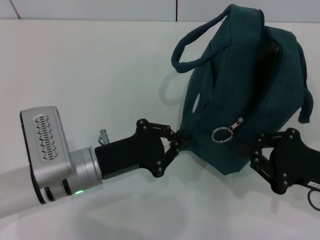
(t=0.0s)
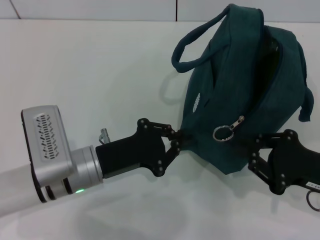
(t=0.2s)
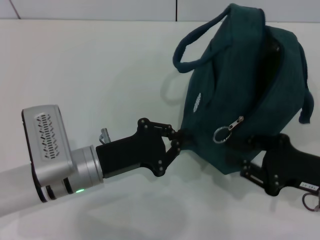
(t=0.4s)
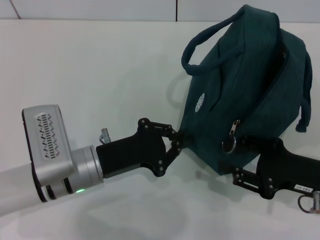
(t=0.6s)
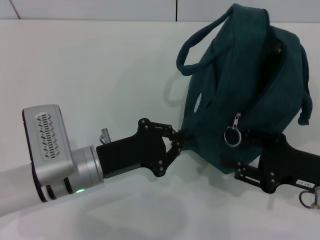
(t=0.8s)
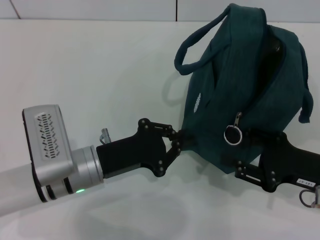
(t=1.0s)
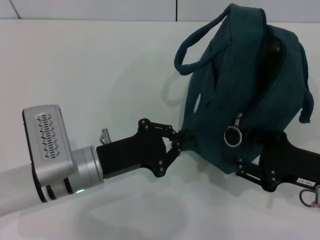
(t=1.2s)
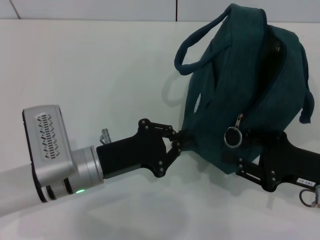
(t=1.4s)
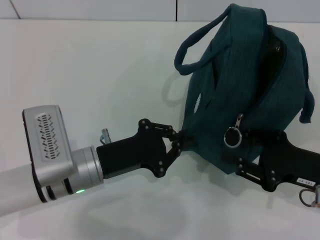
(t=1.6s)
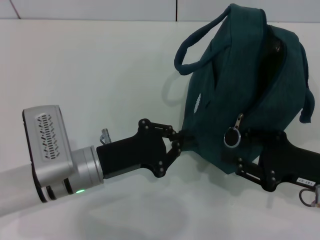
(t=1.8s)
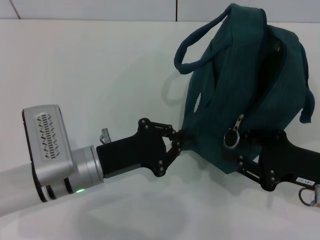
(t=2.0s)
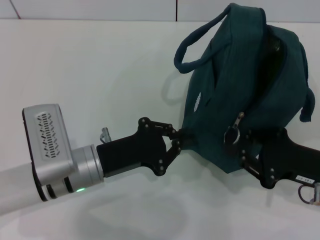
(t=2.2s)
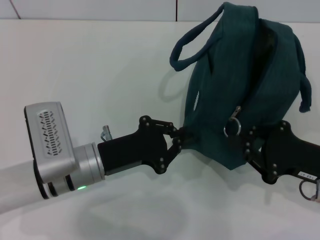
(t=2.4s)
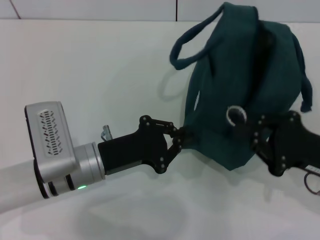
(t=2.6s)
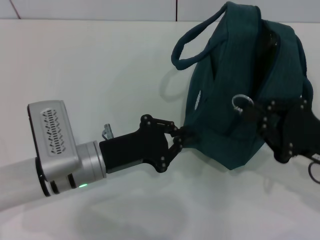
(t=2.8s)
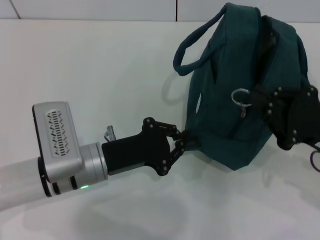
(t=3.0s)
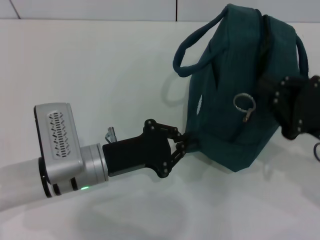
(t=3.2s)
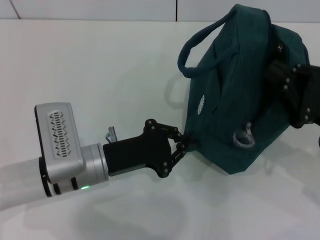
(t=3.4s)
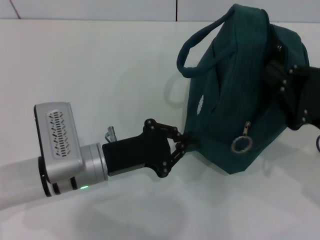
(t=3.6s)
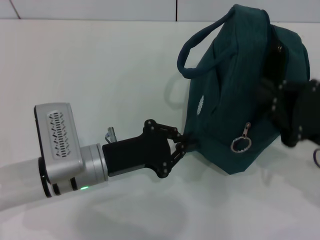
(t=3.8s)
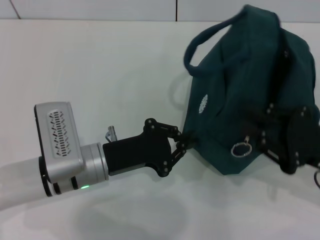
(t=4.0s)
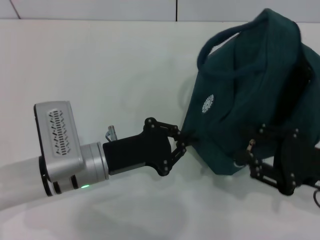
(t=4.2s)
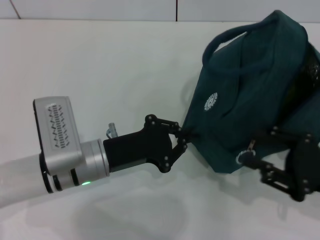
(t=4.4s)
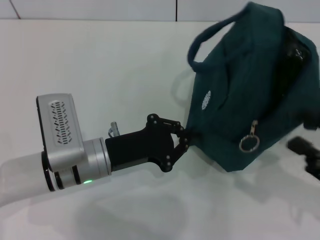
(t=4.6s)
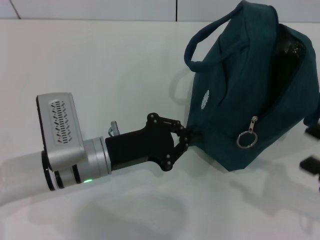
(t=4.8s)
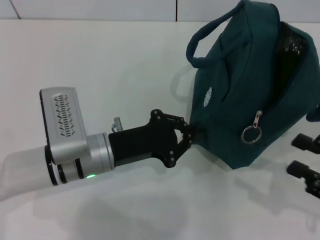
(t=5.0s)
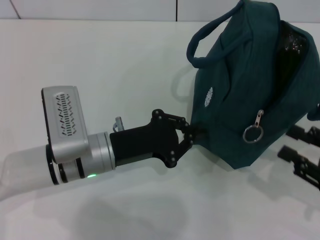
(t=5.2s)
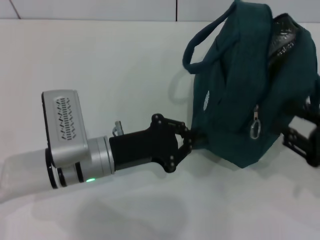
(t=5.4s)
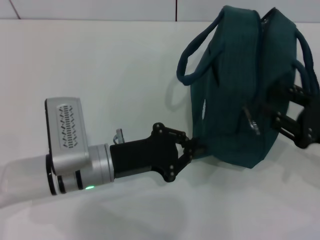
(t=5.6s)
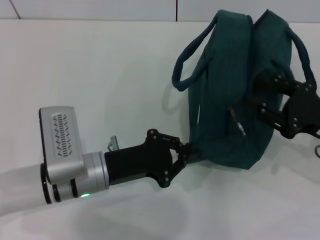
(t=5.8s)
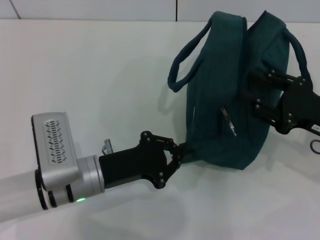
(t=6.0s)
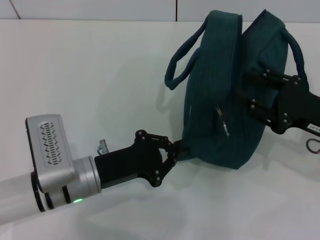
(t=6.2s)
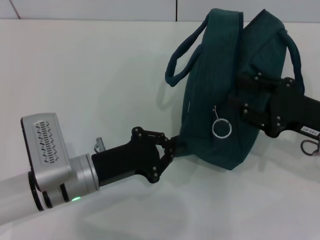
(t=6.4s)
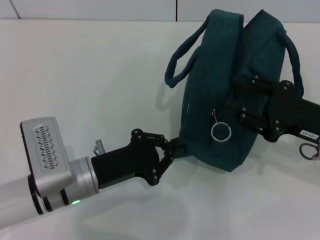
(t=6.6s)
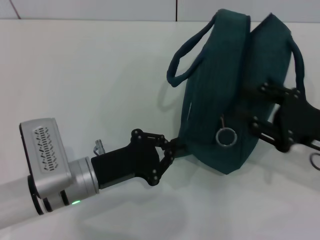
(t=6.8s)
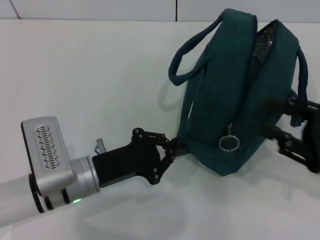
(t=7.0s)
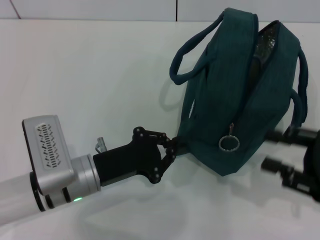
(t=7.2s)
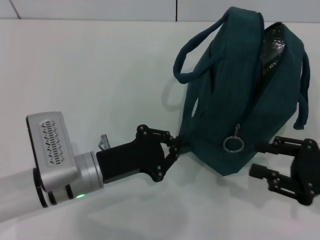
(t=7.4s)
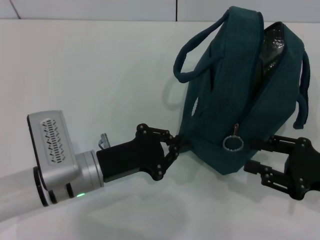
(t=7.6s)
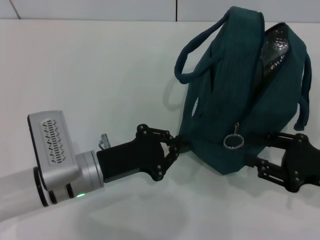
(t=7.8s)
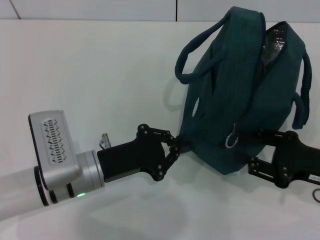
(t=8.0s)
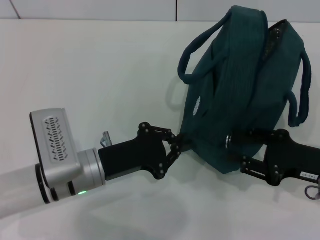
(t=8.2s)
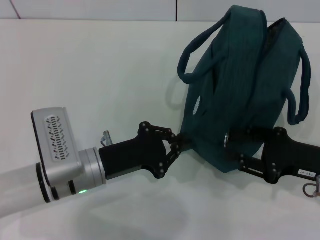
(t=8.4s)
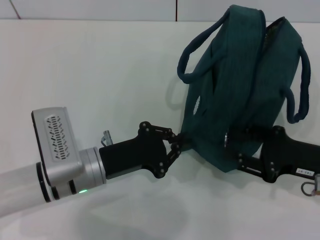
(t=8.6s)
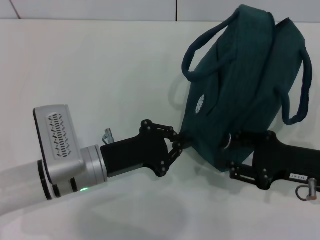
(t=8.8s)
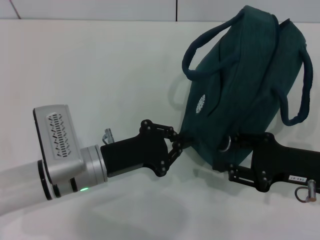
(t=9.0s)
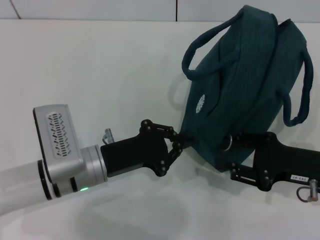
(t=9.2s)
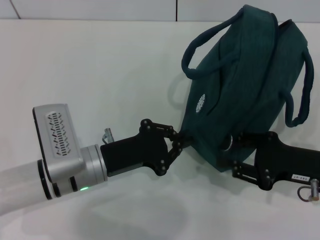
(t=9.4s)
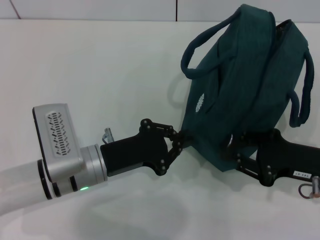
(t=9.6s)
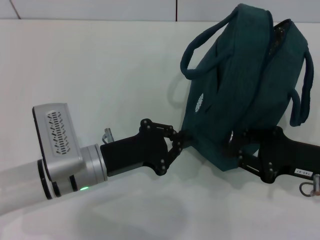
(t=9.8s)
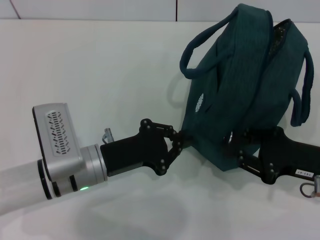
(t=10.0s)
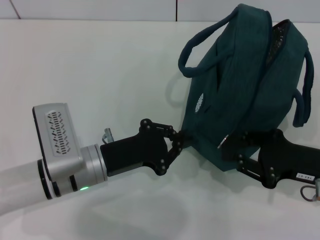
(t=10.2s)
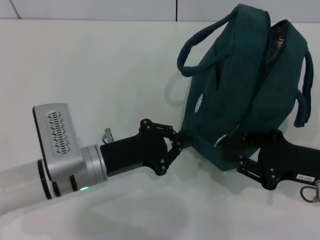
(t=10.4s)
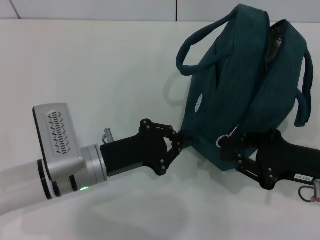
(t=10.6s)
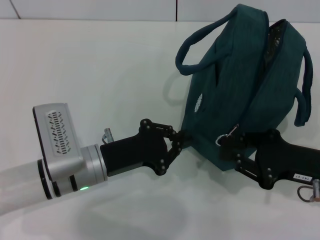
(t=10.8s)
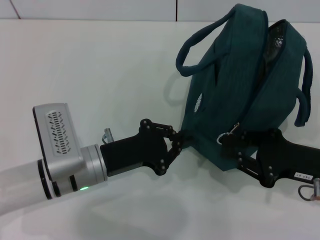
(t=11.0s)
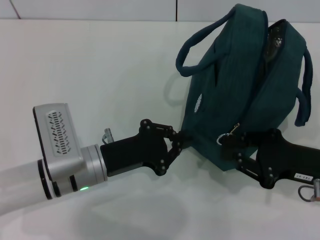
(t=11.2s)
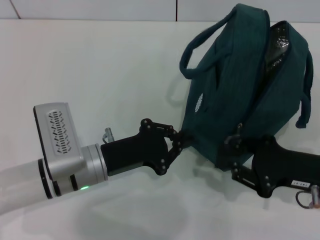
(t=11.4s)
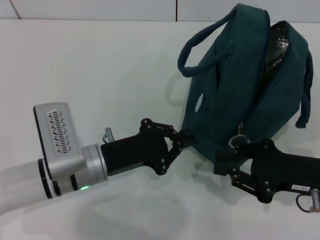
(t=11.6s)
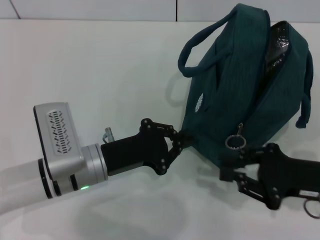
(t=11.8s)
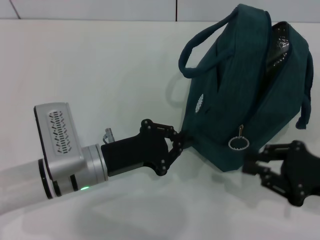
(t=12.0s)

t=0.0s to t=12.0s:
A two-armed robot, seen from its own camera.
t=0.0s to t=1.6s: The right gripper opens up.
t=1.6s to t=3.0s: The right gripper closes up.
t=3.0s to t=4.4s: The right gripper opens its fingers.
t=4.4s to t=6.0s: The right gripper travels forward by some 5 cm.
t=6.0s to t=7.6s: The right gripper moves about 5 cm.
t=7.6s to t=9.0s: There are only small adjustments of the grippers.
t=9.0s to t=10.4s: Both grippers stay about where they are.
t=10.4s to t=12.0s: The grippers make only small movements.

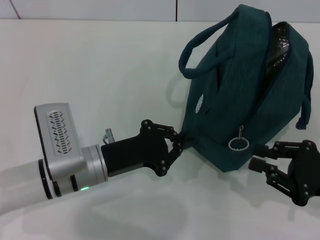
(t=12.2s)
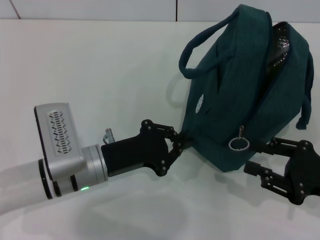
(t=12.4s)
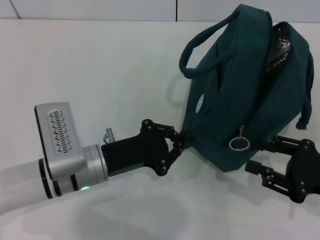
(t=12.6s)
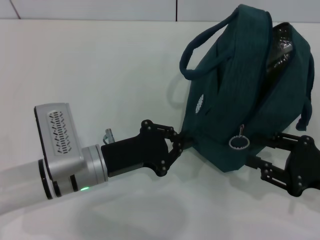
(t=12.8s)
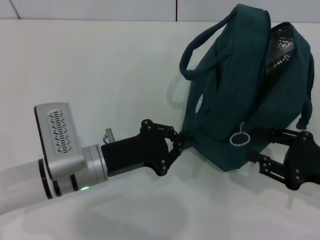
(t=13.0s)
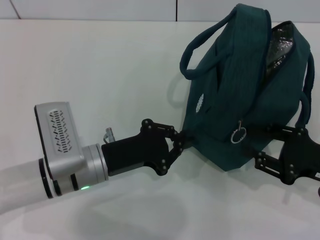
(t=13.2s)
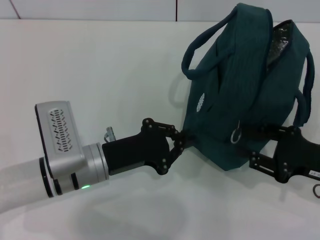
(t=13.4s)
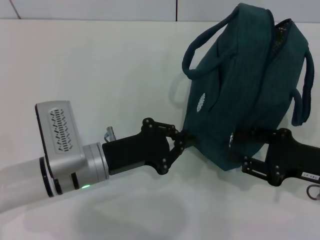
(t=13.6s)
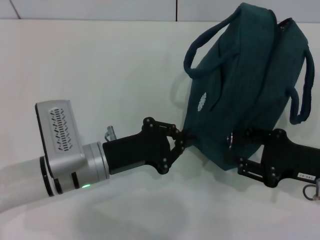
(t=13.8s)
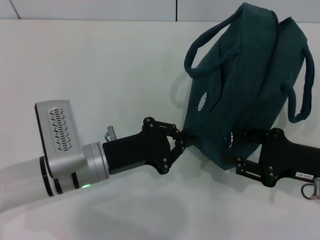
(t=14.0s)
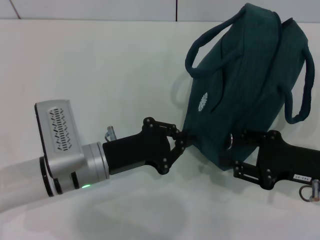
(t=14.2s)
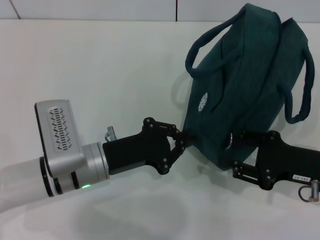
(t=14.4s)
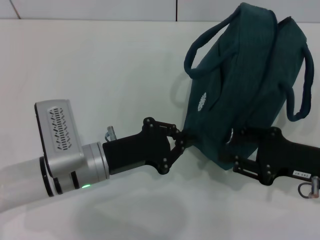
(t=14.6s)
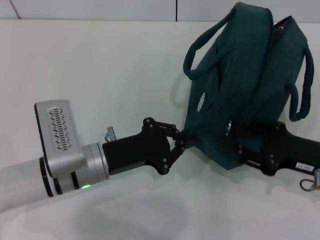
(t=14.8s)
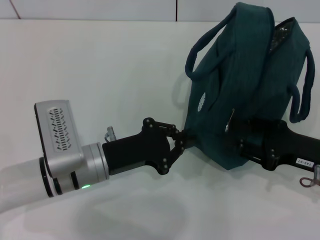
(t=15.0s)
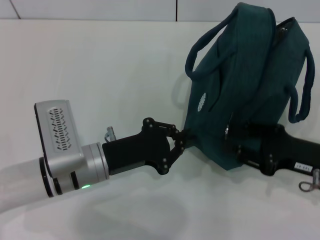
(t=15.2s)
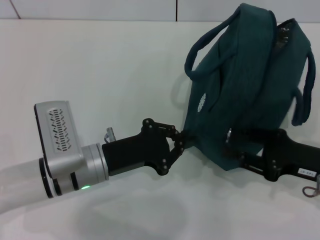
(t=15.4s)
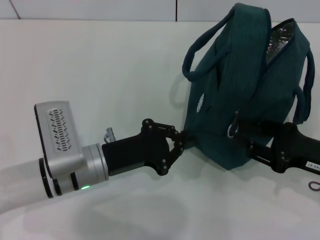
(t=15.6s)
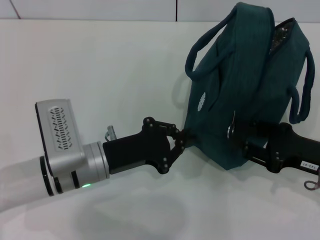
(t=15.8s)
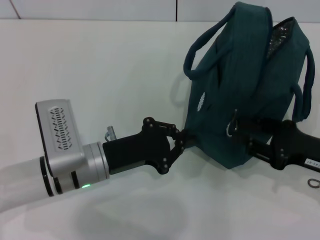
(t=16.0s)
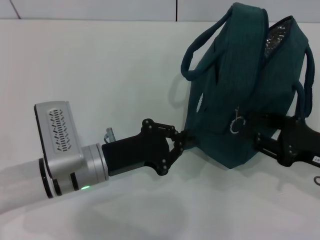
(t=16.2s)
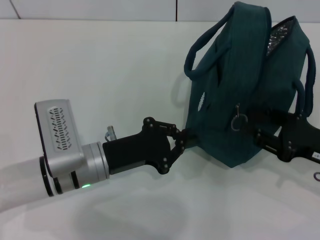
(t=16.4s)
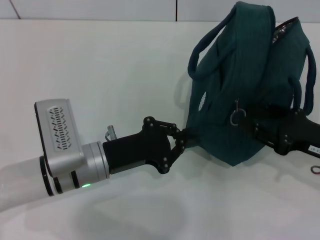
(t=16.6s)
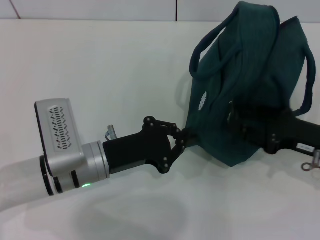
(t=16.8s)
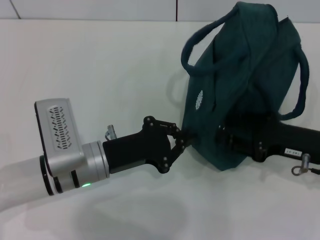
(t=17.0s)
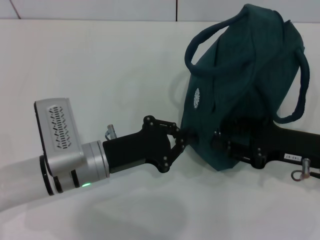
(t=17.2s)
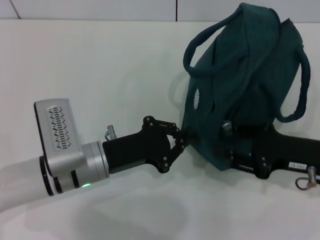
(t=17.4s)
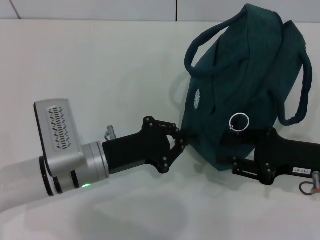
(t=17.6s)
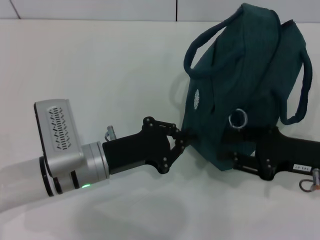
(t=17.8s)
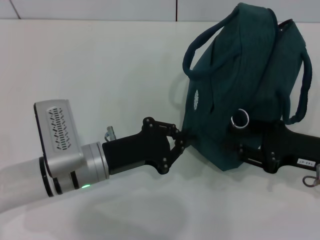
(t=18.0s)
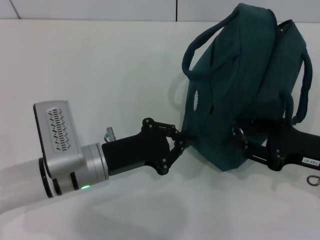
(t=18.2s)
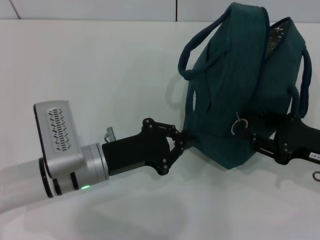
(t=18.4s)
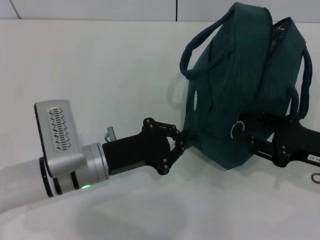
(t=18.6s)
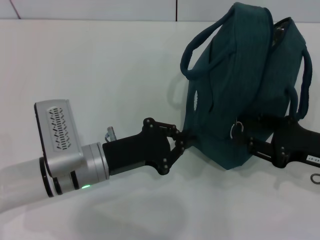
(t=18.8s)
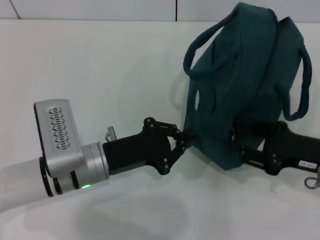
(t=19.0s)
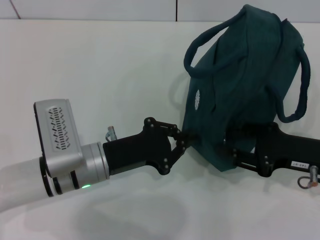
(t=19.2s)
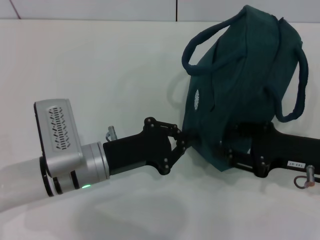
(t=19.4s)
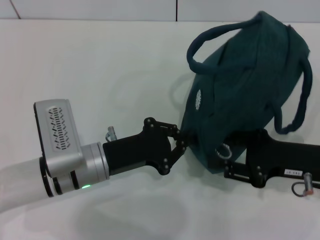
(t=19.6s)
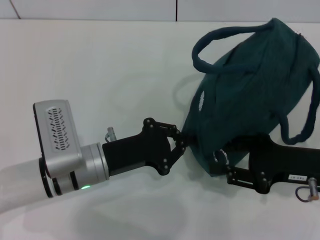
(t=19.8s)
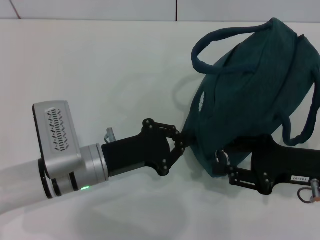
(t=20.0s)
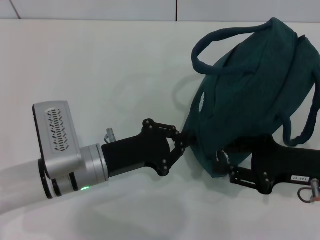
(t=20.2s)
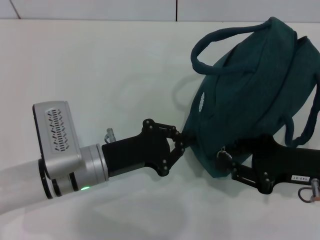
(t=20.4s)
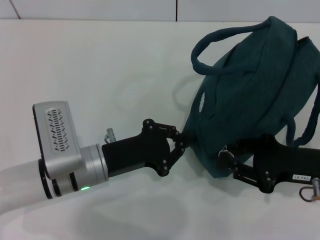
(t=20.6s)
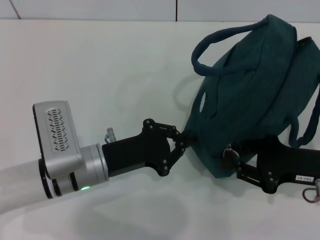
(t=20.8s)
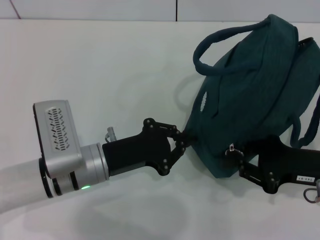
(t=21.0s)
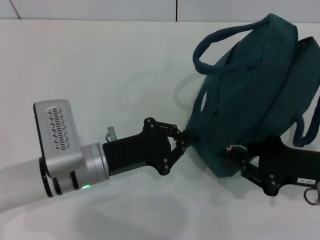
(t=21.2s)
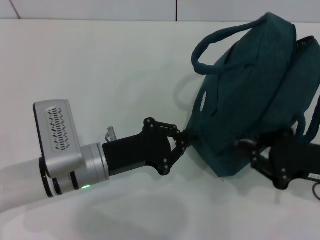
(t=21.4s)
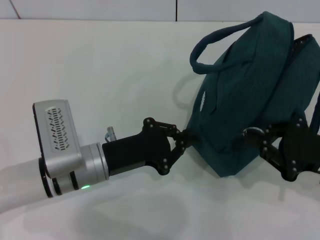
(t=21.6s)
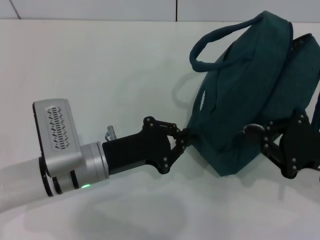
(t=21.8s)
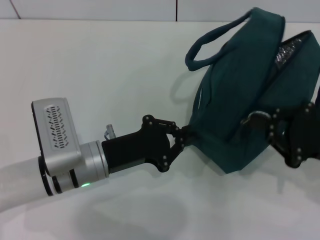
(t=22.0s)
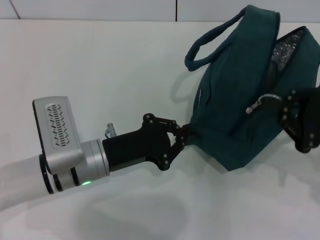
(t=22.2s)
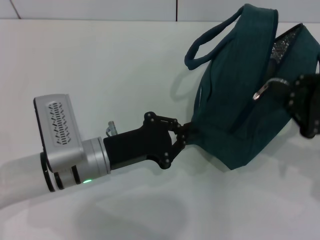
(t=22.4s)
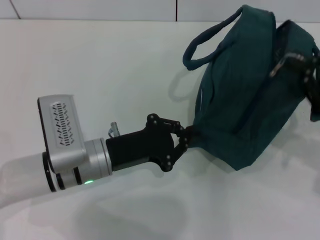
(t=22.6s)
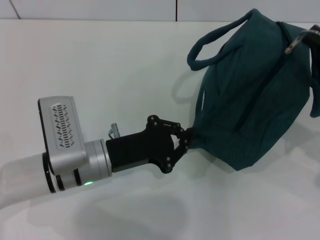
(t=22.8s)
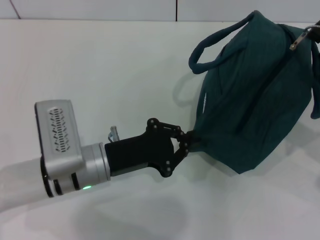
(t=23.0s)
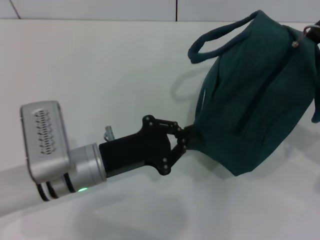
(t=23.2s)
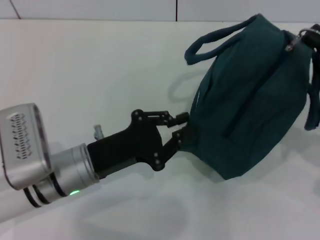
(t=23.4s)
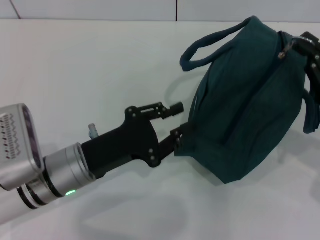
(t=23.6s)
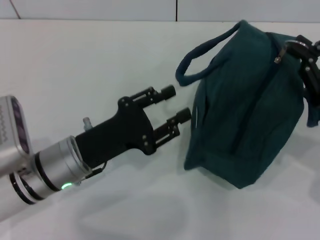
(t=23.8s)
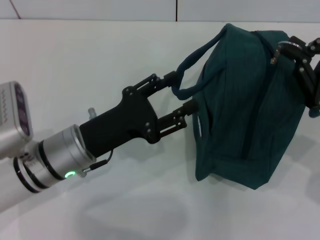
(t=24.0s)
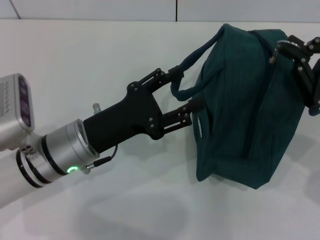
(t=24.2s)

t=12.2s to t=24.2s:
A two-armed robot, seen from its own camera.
t=12.2s to t=16.6s: The grippers make only small movements.
t=16.6s to t=19.8s: The grippers make only small movements.
t=19.8s to t=21.2s: The right gripper closes up.
t=21.2s to t=22.6s: The right gripper shifts approximately 5 cm upward.
t=22.6s to t=24.2s: The left gripper opens its fingers.
